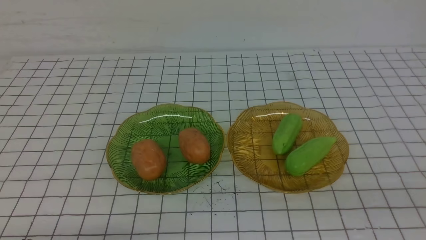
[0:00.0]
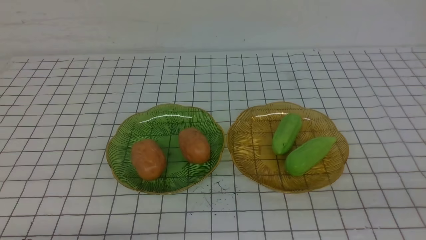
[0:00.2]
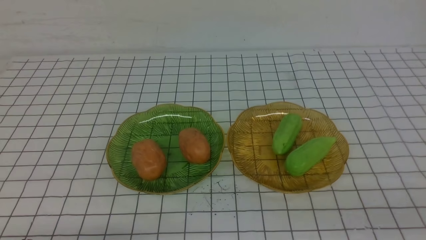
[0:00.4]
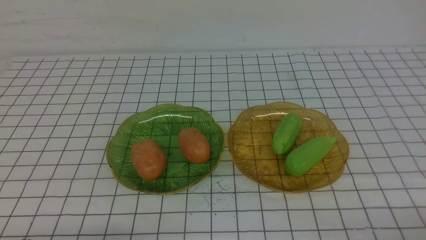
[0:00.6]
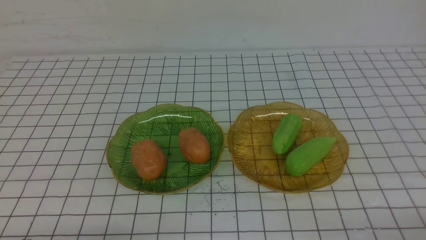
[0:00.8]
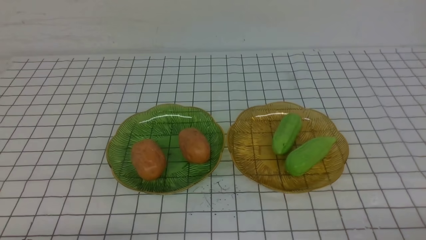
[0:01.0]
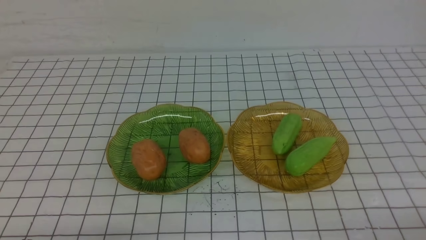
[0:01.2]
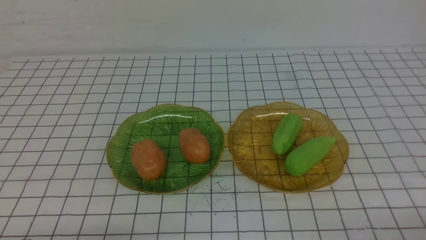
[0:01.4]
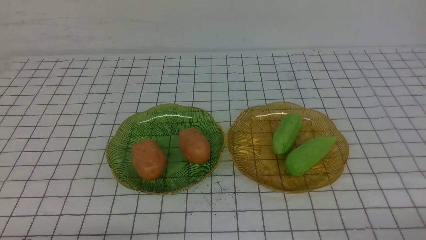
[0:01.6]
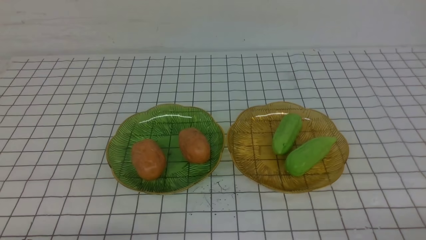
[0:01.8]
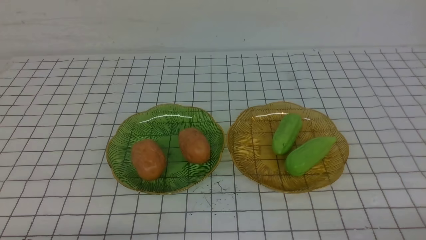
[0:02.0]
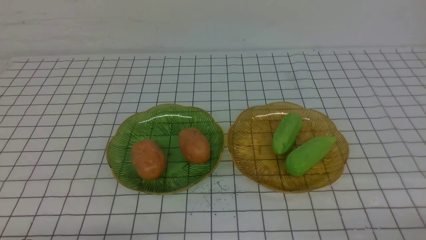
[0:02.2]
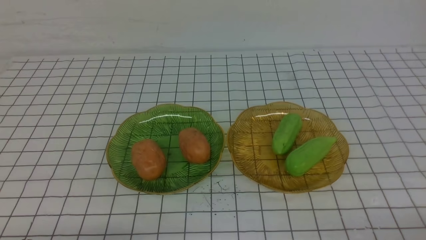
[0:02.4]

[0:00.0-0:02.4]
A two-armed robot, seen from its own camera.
0:01.2 to 0:02.4: Neither gripper changes place.
